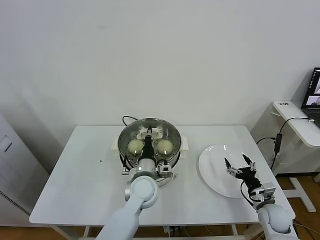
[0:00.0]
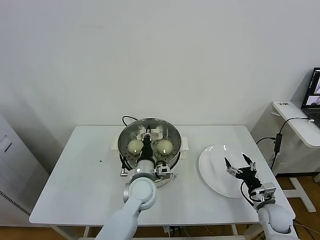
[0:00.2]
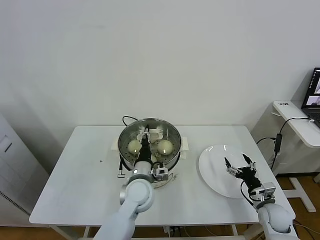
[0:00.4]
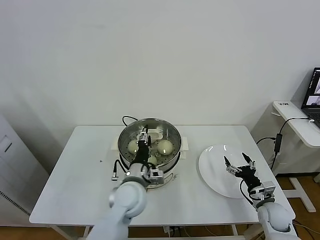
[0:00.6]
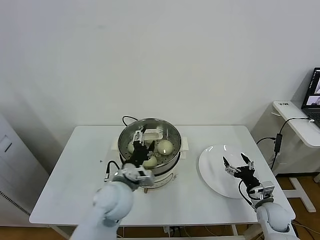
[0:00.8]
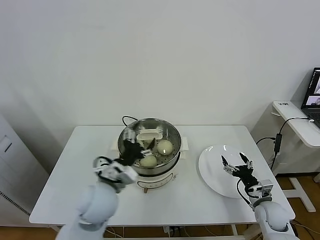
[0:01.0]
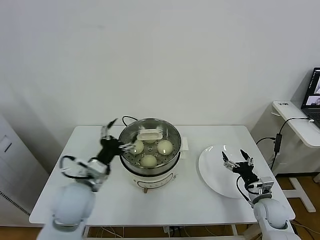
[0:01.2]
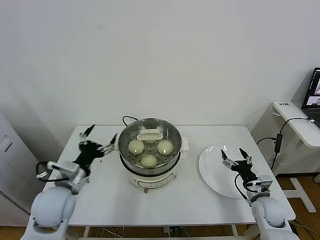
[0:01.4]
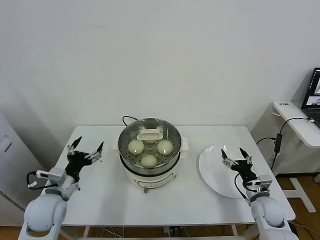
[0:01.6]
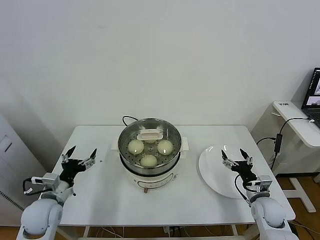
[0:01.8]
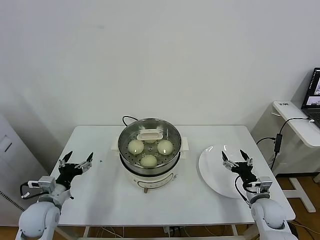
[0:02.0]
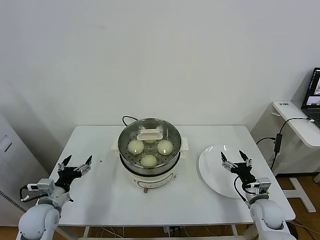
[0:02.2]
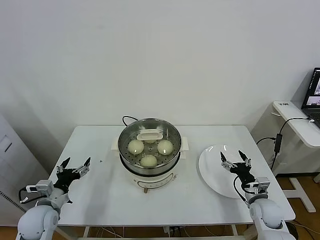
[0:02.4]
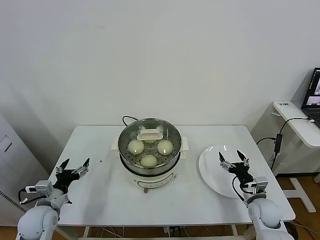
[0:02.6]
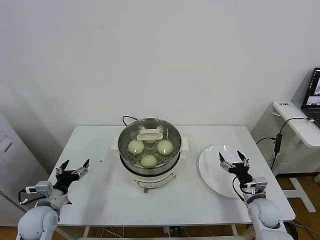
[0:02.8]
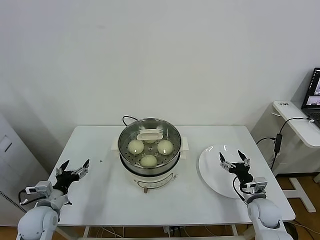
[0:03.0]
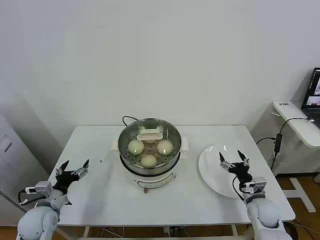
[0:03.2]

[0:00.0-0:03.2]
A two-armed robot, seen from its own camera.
Task of the whole recording: take steamed baozi put them in steamer.
0:00.0 to 0:01.6: The left gripper travels to the left by about 25 cm, and opens up.
0:01.6 to 0:03.2: The left gripper heads downward and to the left, covering approximately 10 cm.

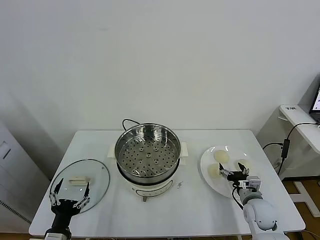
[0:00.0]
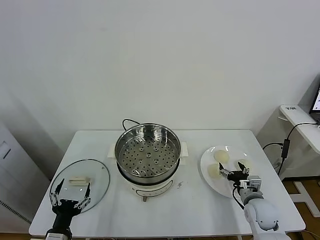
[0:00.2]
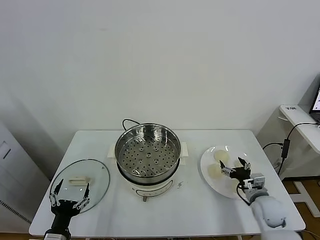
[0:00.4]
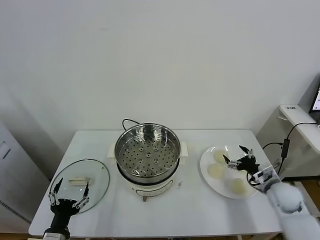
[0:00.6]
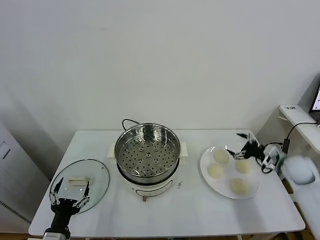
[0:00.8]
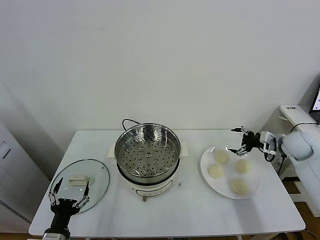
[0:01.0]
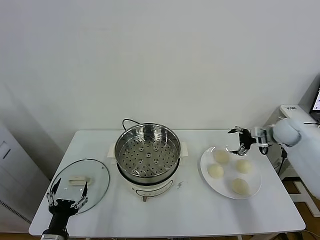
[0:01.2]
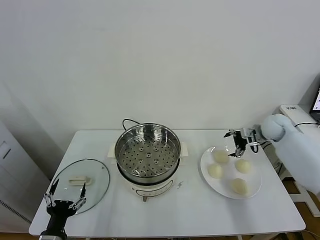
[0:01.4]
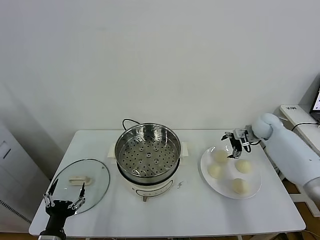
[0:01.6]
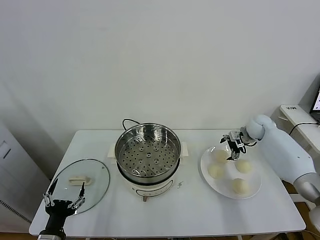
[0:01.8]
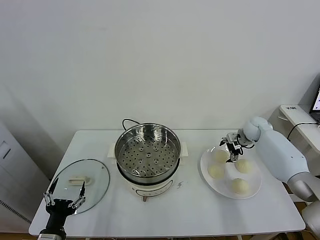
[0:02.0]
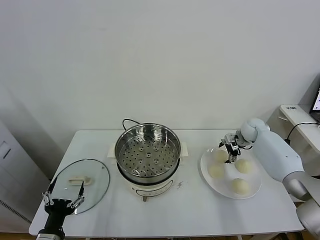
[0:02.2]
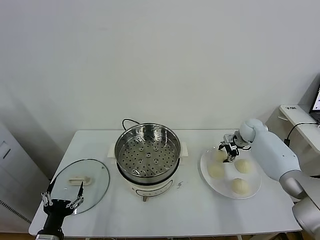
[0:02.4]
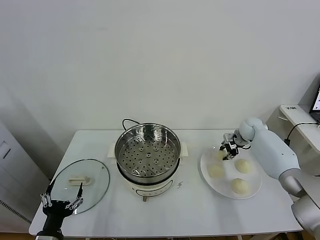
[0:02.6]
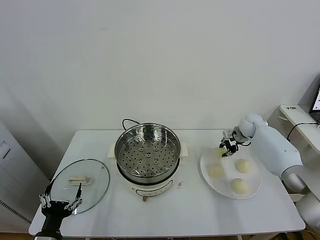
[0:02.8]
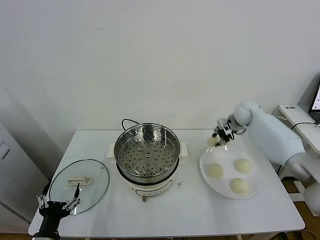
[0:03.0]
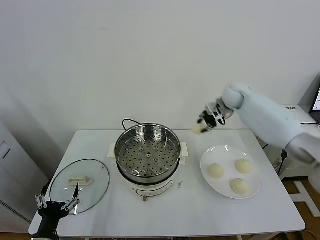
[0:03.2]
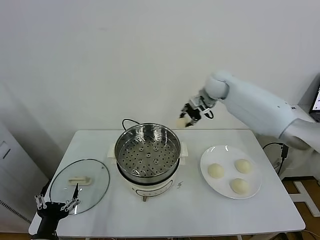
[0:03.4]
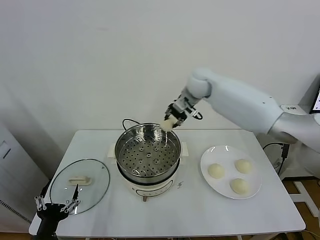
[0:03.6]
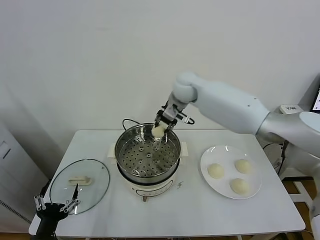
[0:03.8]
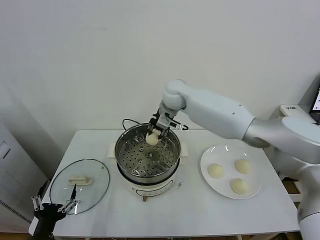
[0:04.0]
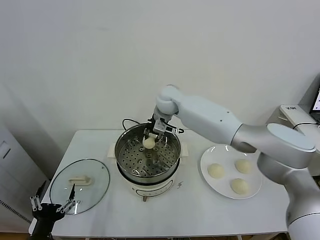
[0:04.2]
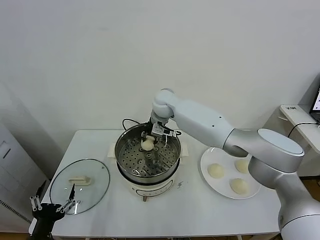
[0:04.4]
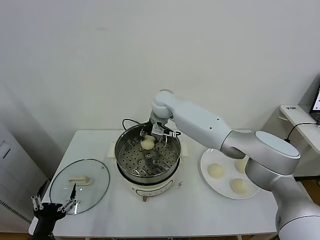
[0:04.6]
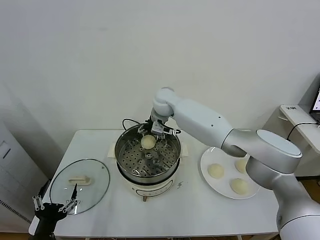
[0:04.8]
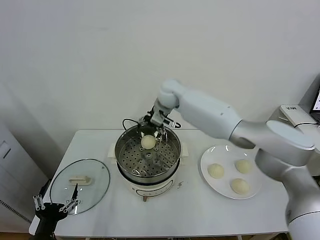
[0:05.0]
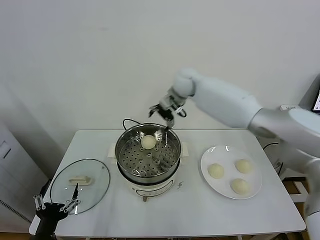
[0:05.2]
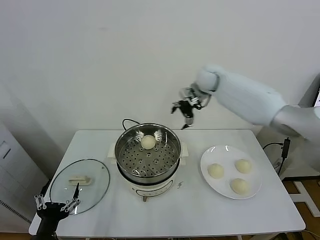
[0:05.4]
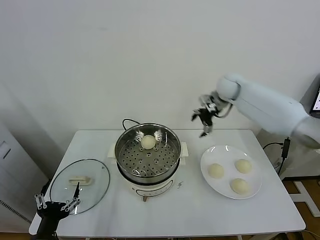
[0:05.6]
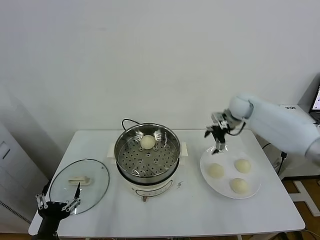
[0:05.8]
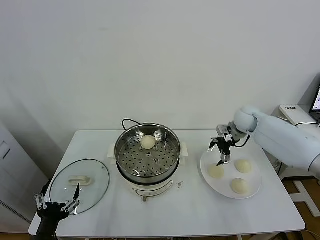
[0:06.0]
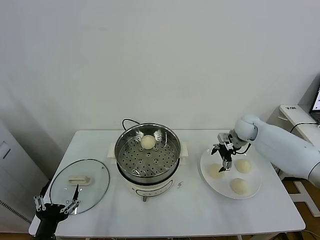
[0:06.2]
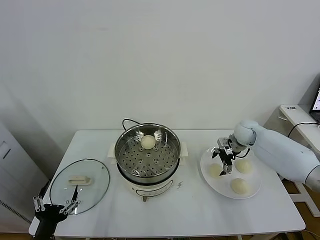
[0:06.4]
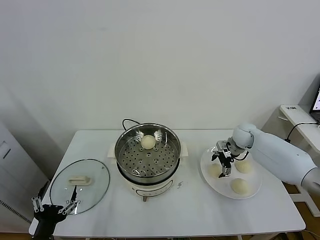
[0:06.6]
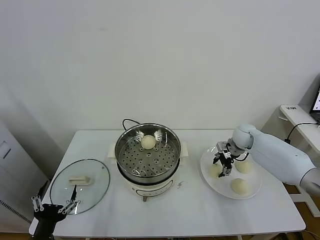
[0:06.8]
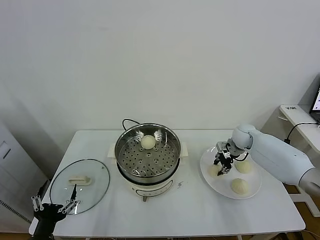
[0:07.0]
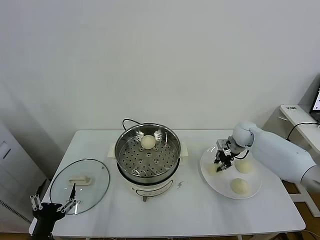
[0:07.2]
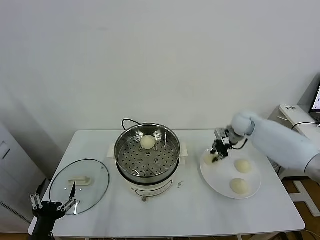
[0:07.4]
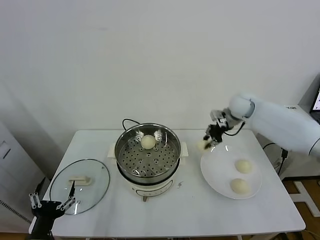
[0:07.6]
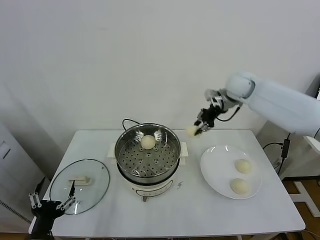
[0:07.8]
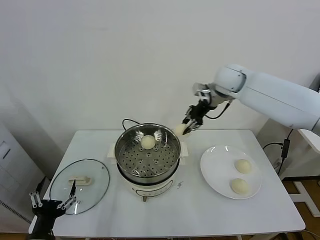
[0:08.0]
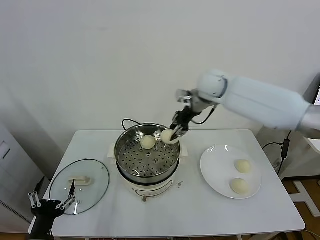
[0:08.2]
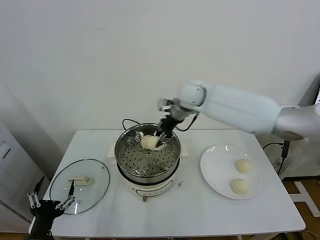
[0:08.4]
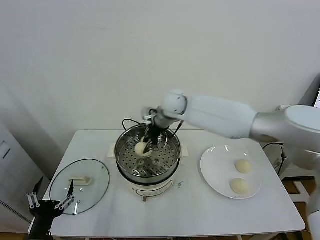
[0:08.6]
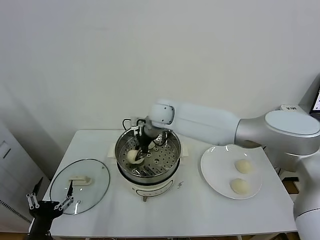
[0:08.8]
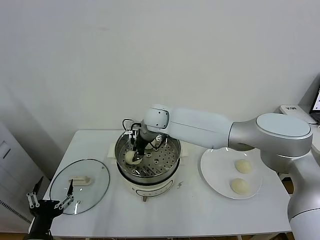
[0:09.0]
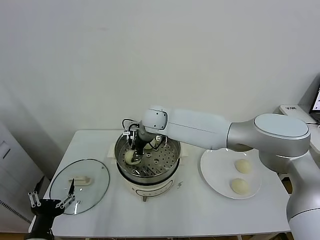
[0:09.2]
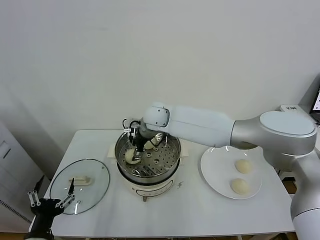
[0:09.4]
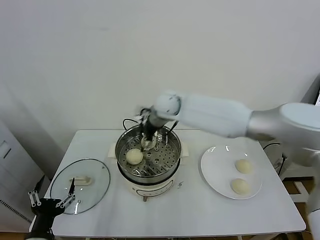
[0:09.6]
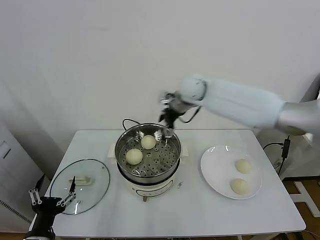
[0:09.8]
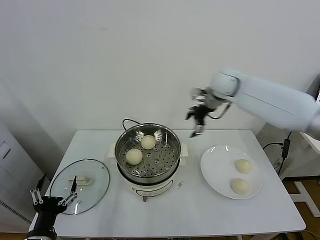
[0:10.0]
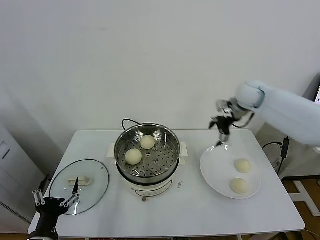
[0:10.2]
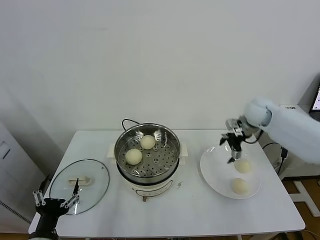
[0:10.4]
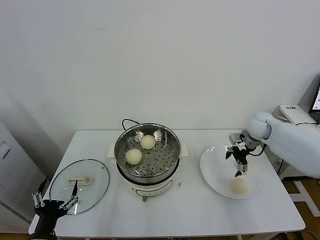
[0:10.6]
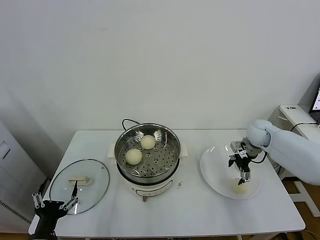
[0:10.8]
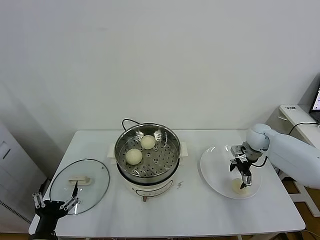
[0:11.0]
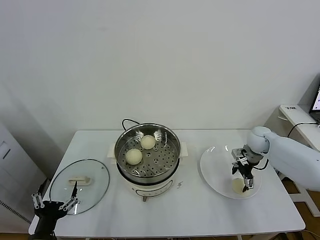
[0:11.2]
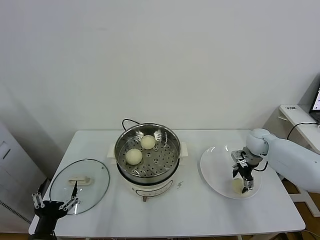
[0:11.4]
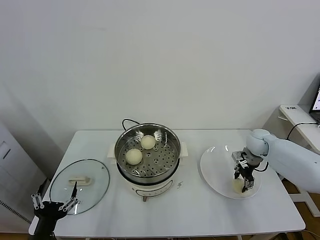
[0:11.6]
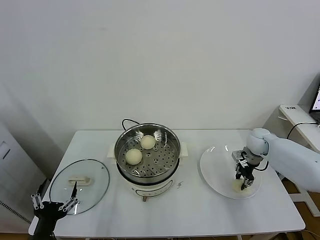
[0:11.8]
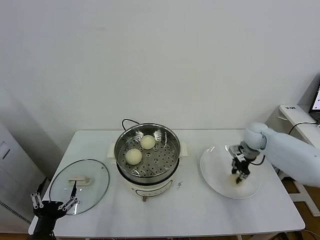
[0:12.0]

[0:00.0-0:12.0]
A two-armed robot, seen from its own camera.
Task of the whole recording: take steamed baozi put them in steamer.
Step, 0:00.0 to 0:02.2: Grasp the baozi in the plate with right gripper.
Step, 0:02.6 to 0:04.8: Place the baozi on the steamer with right gripper.
Step, 0:05.0 to 0:06.8: Grasp the baozi in the plate with right gripper.
Step, 0:07.0 to 0:09.4: Place the baozi on the steamer with right gripper.
Step, 0:09.6 to 0:11.4: Grasp the baozi in the plate with right gripper.
0:01.6 to 0:03.0: The right gripper goes approximately 15 cm to the left and upward, and closes.
0:03.0 to 0:04.4: The right gripper goes some 30 cm to the left.
0:04.4 to 0:06.0: The right gripper is displaced to the right by approximately 30 cm, and opens its fingers.
0:06.0 to 0:07.6: The right gripper moves upward, some 10 cm, and closes up.
0:07.6 to 0:09.0: The right gripper goes about 30 cm to the left.
0:09.0 to 0:10.4: The right gripper moves to the right, approximately 35 cm, and opens up.
0:10.4 to 0:12.0: The right gripper moves downward, some 5 cm, and closes.

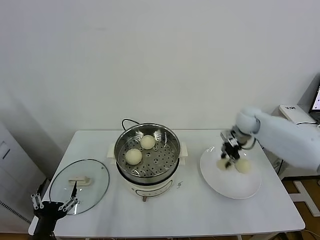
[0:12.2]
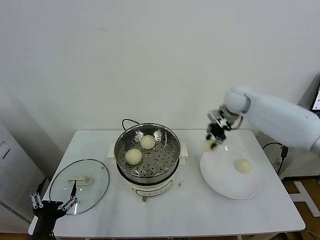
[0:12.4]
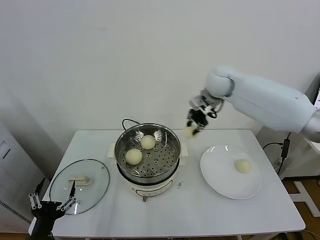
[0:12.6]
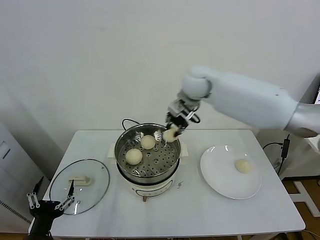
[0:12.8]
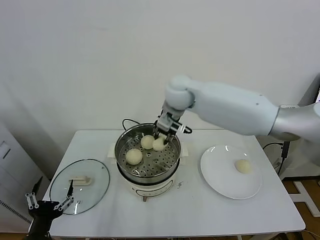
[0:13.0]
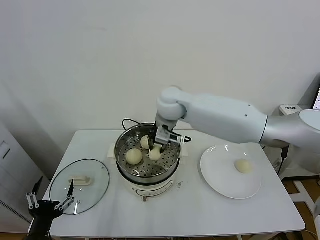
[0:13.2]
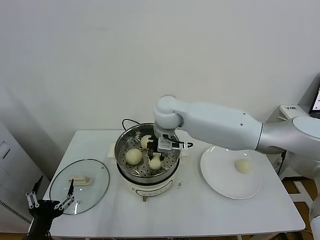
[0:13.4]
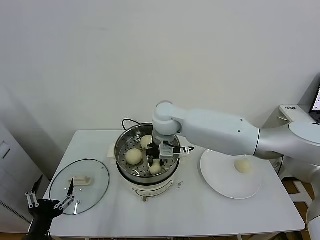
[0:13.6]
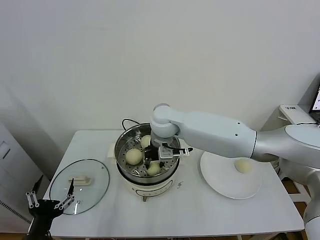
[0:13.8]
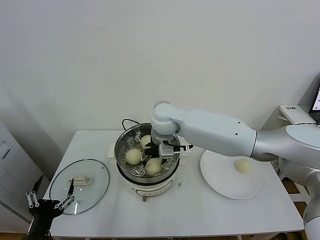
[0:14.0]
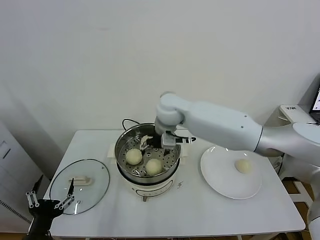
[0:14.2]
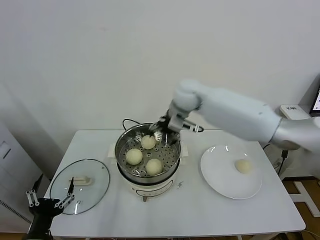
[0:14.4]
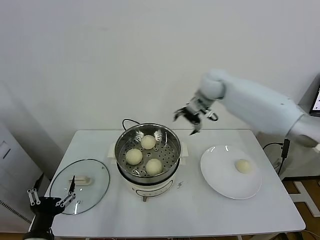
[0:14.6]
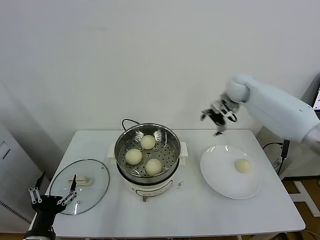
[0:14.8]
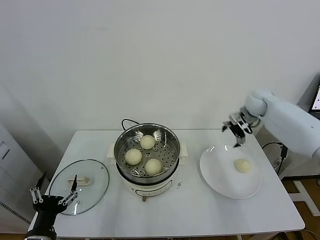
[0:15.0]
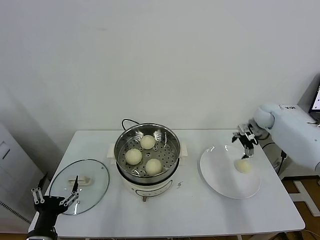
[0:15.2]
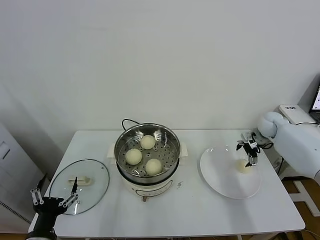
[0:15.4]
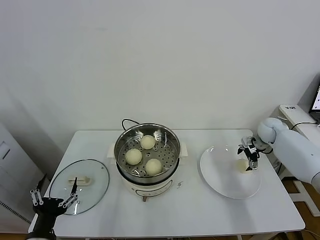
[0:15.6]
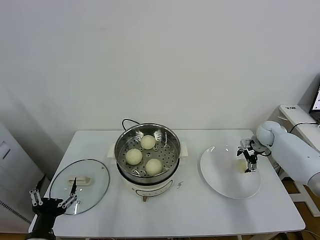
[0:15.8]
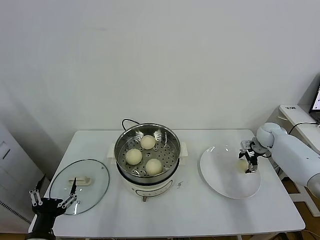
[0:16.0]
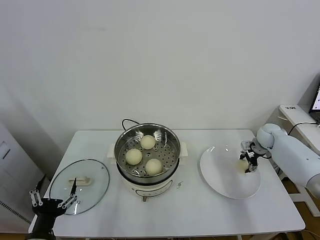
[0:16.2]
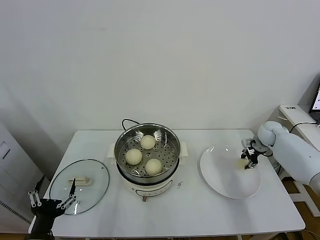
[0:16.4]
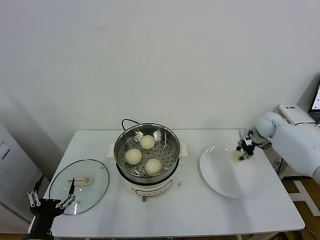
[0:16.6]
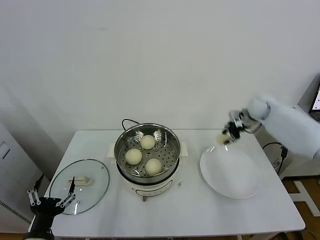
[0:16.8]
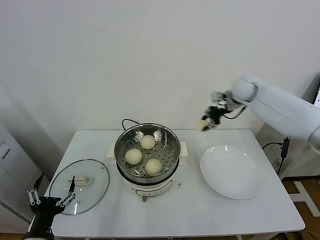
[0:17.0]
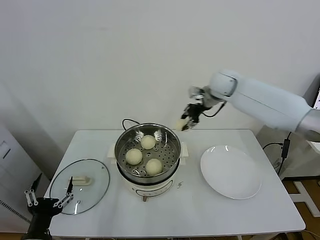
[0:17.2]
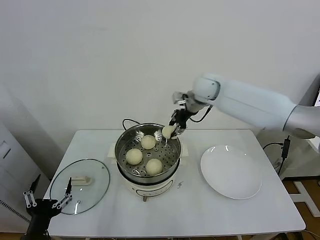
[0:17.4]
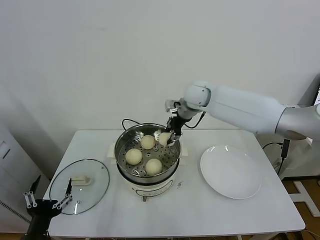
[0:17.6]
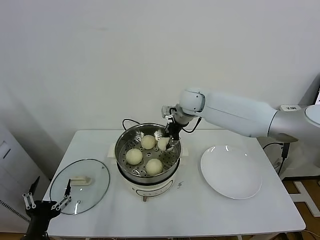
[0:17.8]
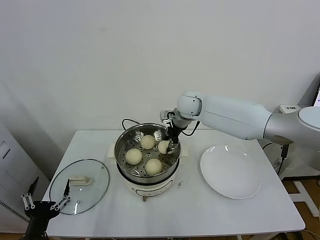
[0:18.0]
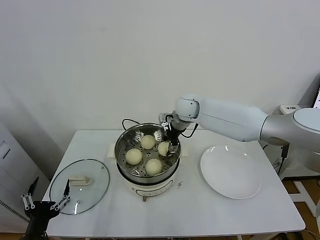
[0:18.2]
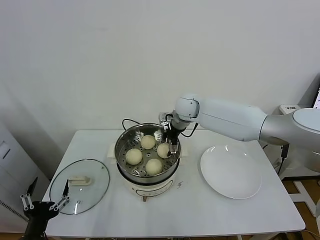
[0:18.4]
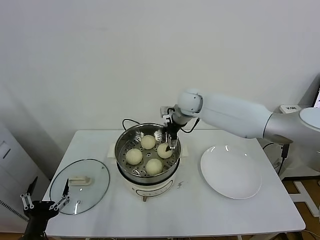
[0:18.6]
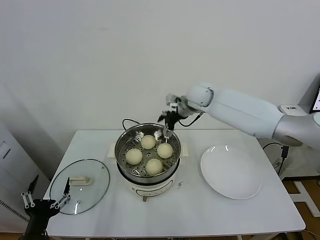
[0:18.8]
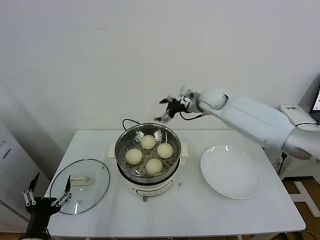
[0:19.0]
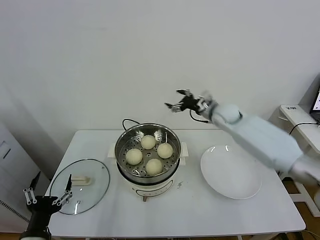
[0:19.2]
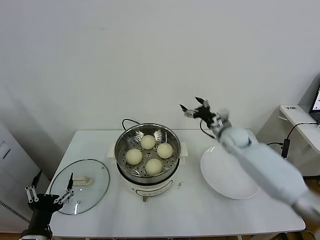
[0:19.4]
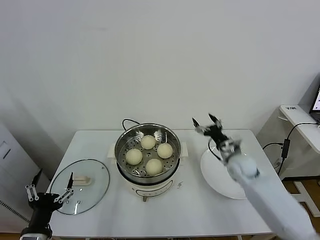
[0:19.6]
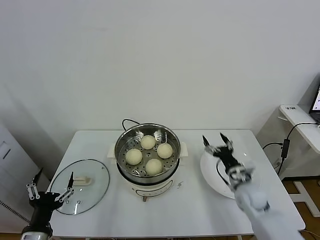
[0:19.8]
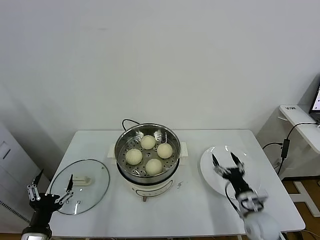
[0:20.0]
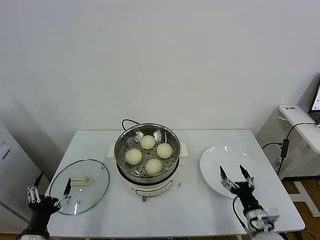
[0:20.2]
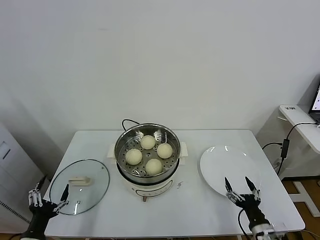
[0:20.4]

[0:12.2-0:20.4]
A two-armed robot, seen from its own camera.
Task of the whole recording: take steamed baozi put them in steamer.
Step, 0:12.2 to 0:14.0: Place the baozi on the steamer with right gripper.
Step, 0:14.2 to 0:16.0: Grasp the baozi in the plate with right gripper.
Step, 0:16.4 to 0:18.4: Place the baozi on the steamer with right gripper.
0:12.2 to 0:13.8: The right gripper is displaced to the left by about 30 cm.
0:13.8 to 0:15.4: The right gripper shifts about 40 cm to the right, and opens.
0:15.4 to 0:17.2: The right gripper goes approximately 30 cm to the left and upward, and closes.
0:17.2 to 0:18.8: The right gripper goes some 5 cm to the left, and opens its fingers.
0:18.8 to 0:20.4: The right gripper heads backward, downward and to the right, covering about 50 cm; the left gripper goes about 5 cm downward.
